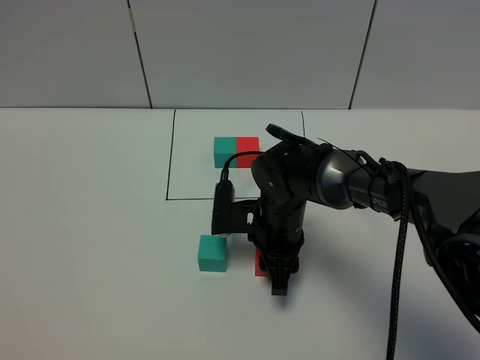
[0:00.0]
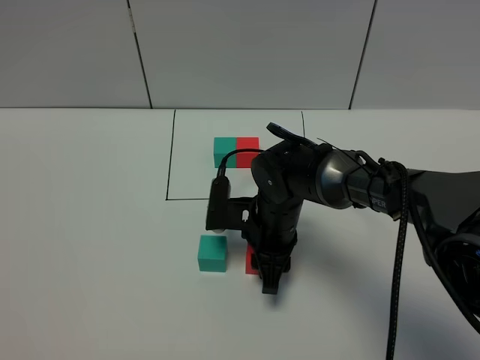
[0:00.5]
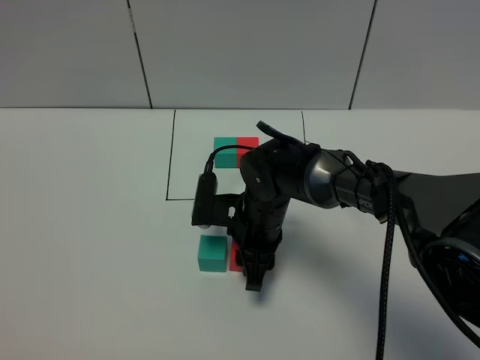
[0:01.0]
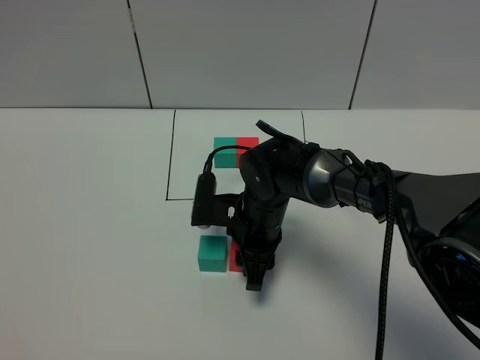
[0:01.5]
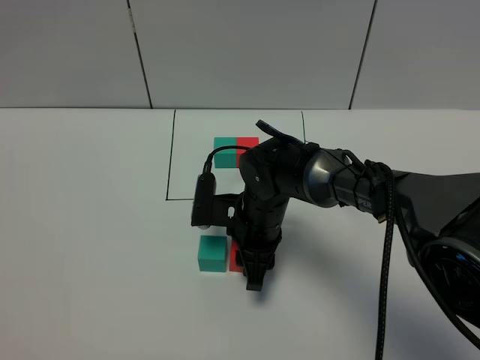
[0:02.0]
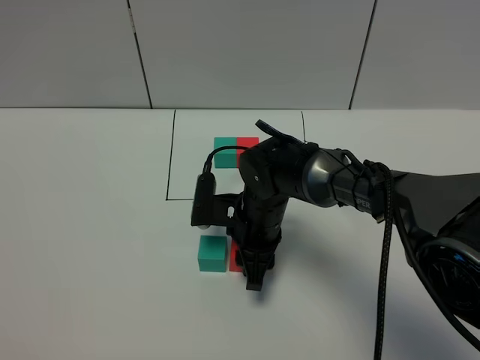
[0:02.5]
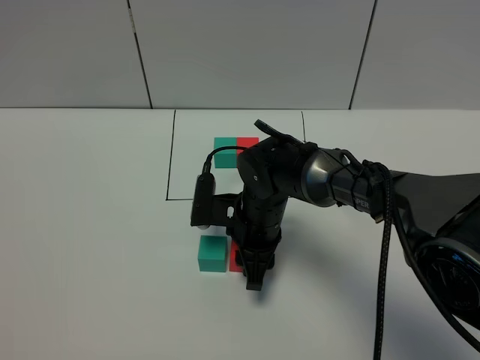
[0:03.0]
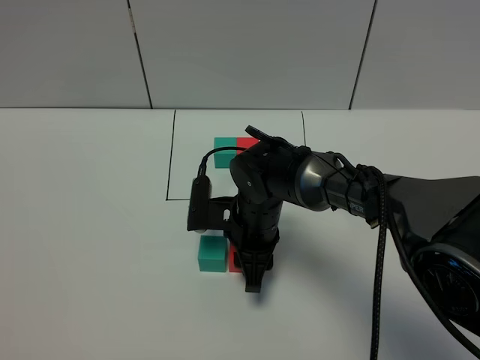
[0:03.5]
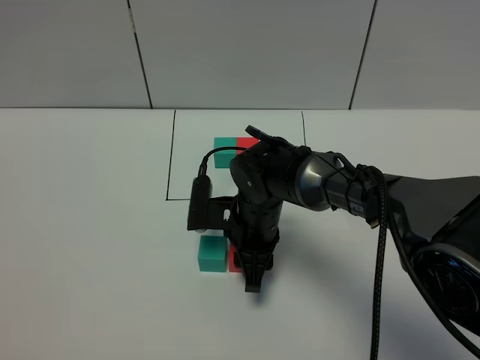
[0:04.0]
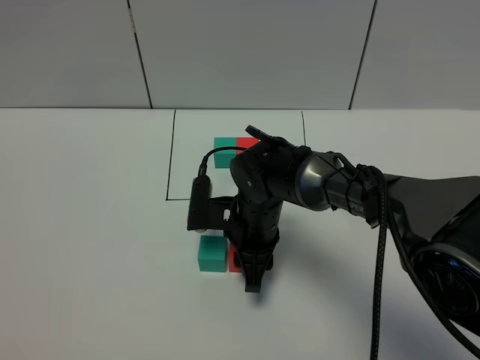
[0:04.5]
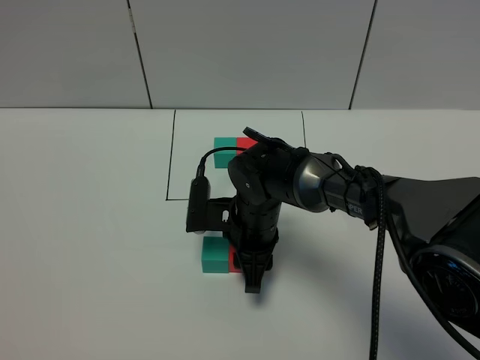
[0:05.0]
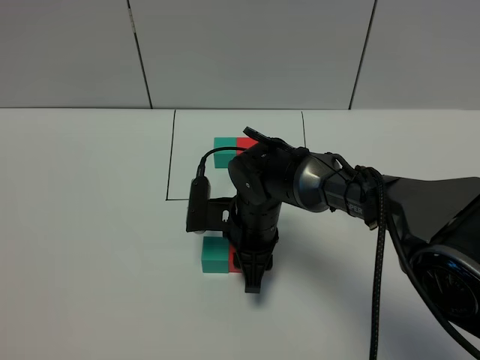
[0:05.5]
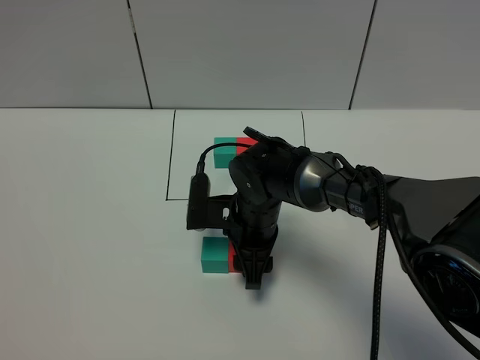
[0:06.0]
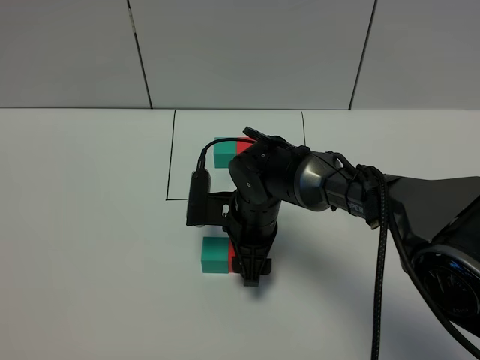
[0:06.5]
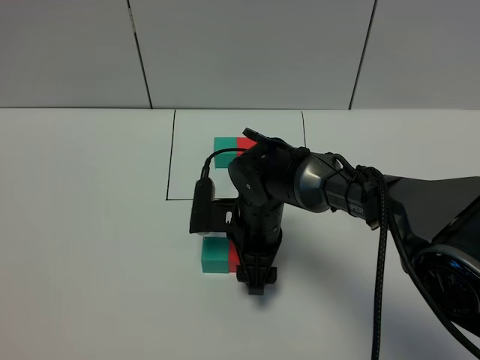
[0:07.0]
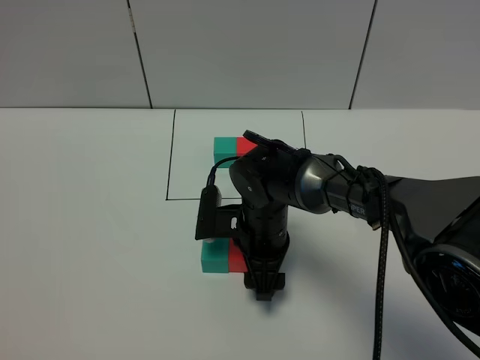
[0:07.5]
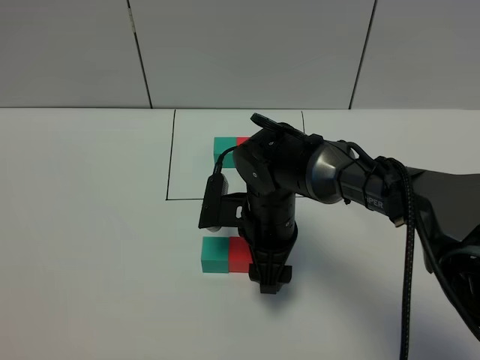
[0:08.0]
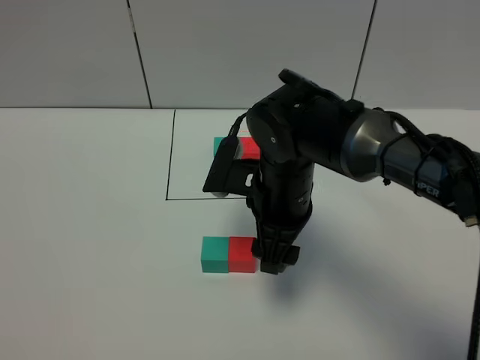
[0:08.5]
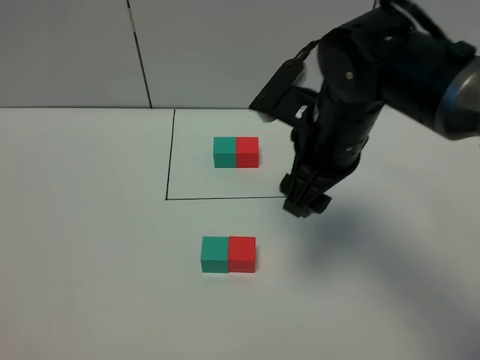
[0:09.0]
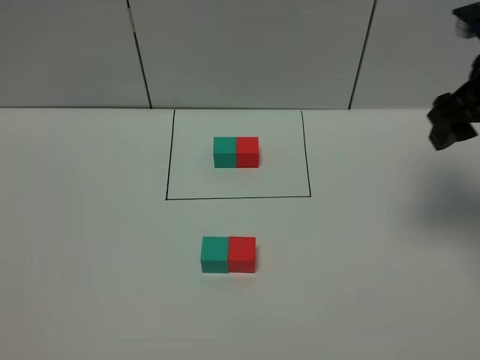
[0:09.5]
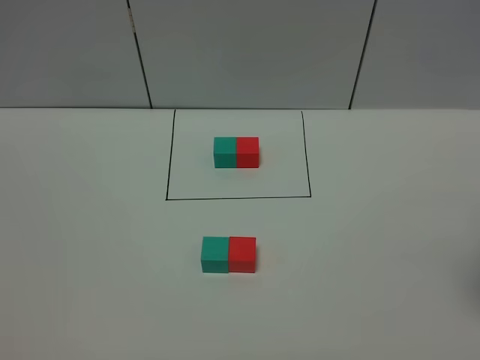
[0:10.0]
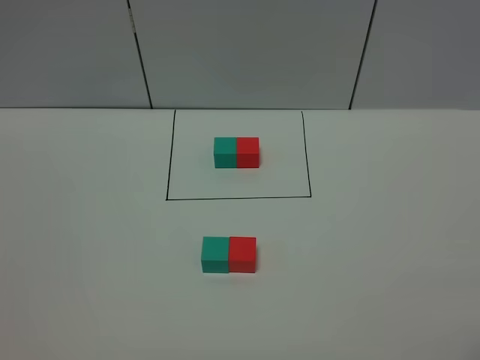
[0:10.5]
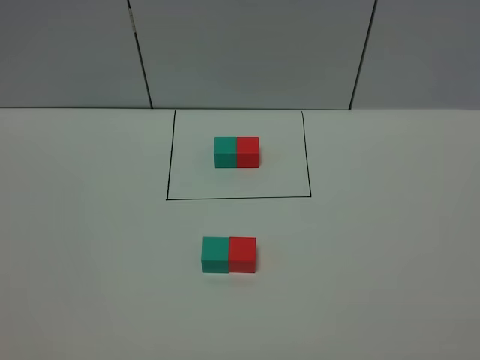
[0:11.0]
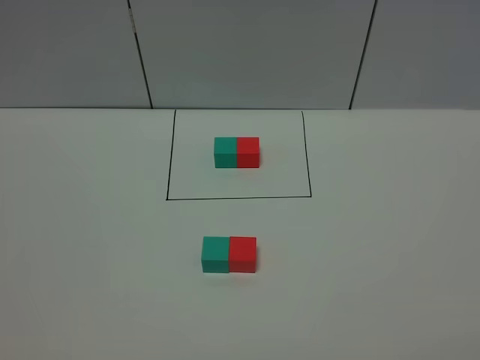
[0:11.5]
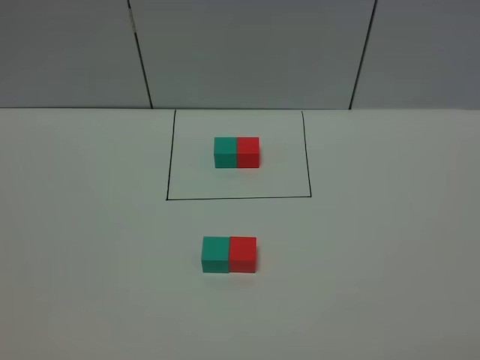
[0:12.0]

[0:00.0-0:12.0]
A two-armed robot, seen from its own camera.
Task of the whole recording: According to the building block template in front, assemble the scattered blocks together.
Step, 0:00.0 to 0:08.0: Put the red cube on the right of the green cube.
0:00.0 to 0:02.0: There are only small adjustments of the grippers.
0:02.0 to 0:06.0: The two grippers keep their place.
0:06.0 to 0:08.0: There are only small adjustments of the grippers.
0:08.0 to 0:10.0: The right gripper goes roughly 35 cm to the right and upward.

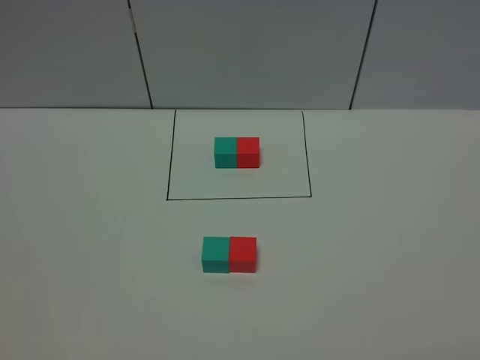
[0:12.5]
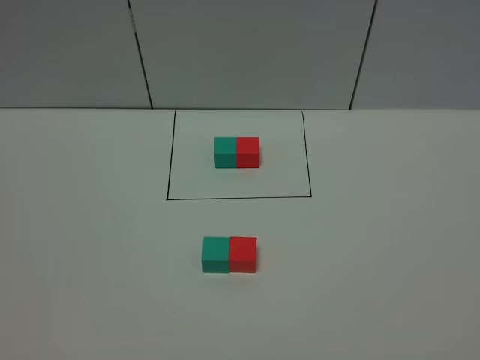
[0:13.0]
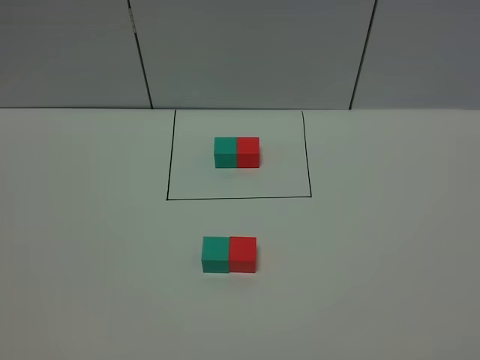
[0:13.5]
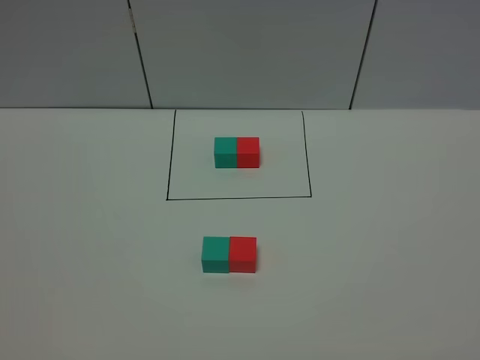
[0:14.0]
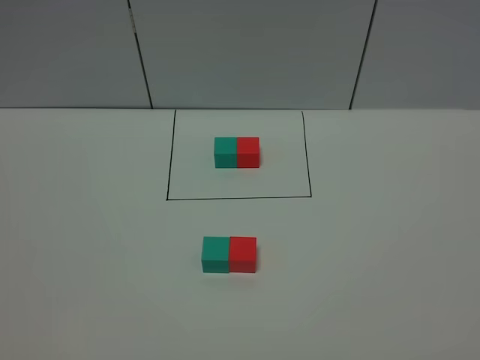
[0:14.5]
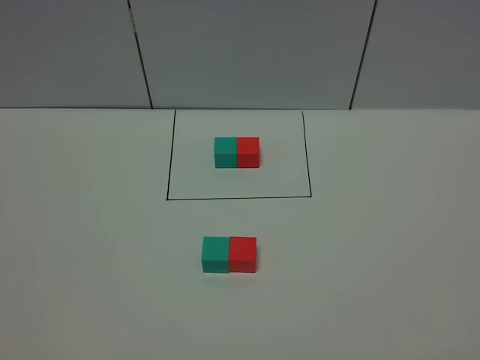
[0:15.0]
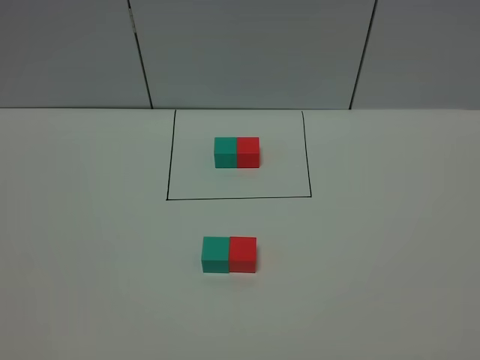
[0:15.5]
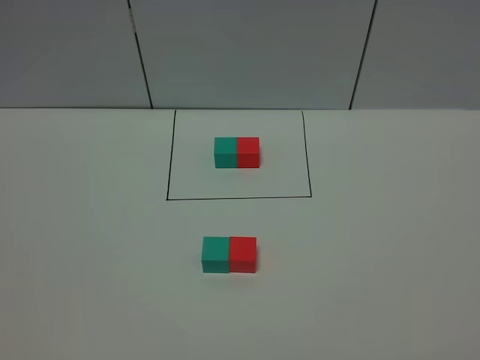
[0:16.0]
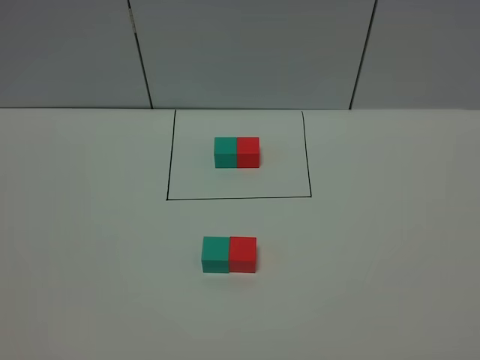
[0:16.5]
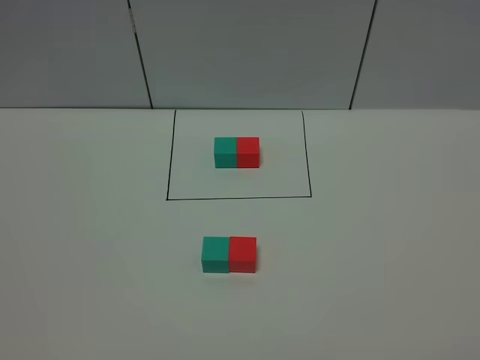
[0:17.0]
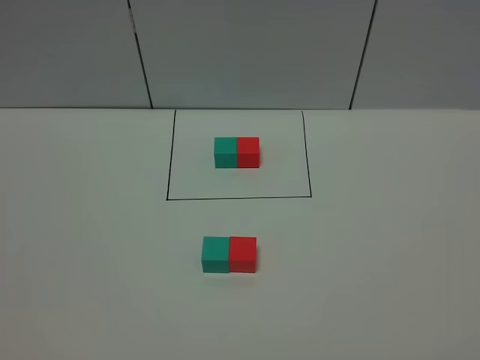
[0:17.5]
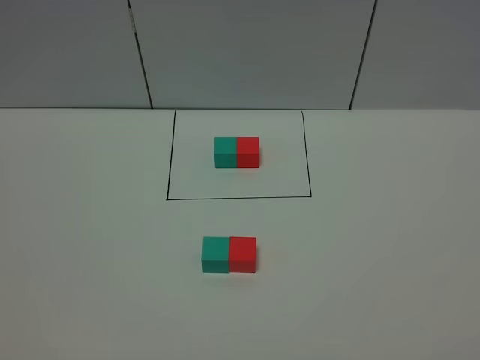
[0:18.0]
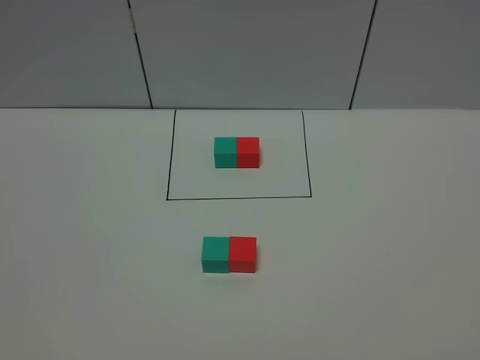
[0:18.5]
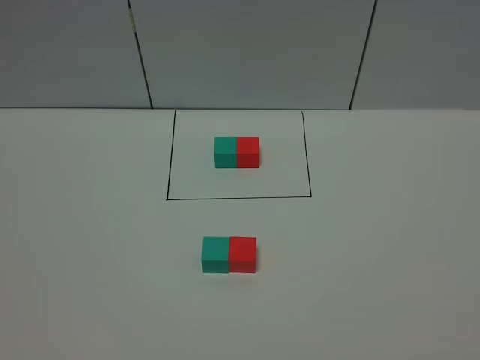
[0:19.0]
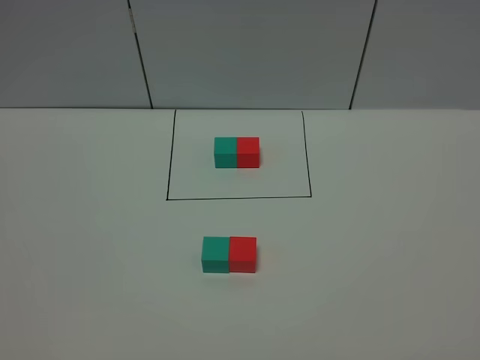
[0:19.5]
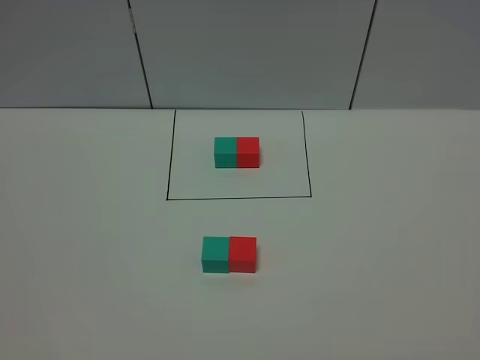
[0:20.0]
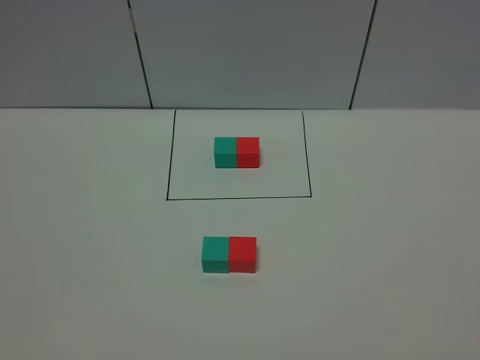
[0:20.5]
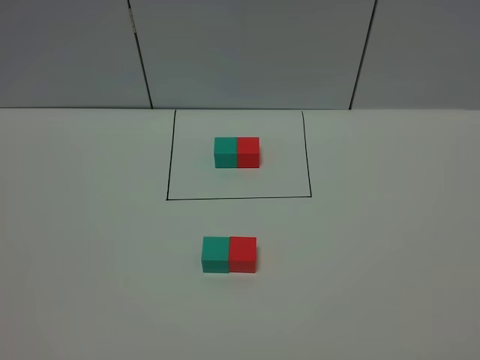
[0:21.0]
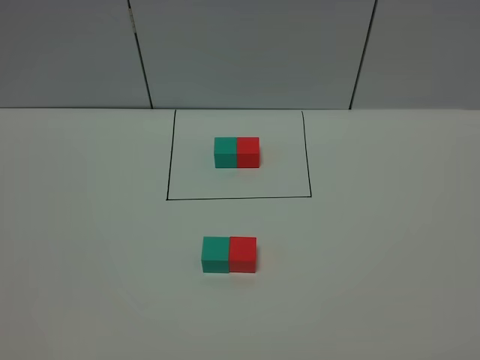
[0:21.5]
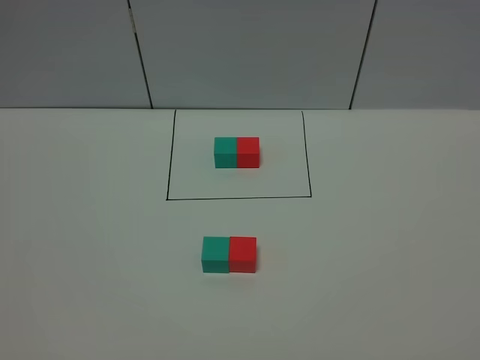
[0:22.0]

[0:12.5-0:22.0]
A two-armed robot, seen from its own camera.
Task of the whole recording: According to the building block template in front, assemble the scattered blocks together.
0:14.5 to 0:22.0: The two grippers keep their place.

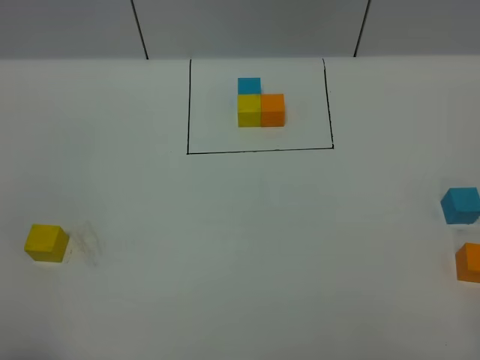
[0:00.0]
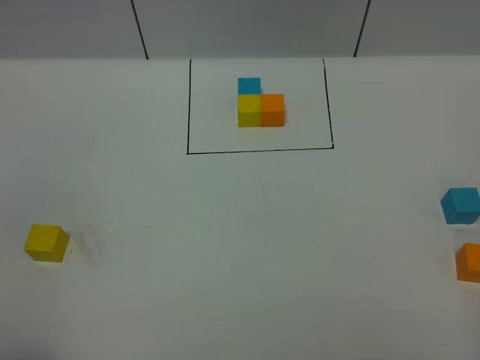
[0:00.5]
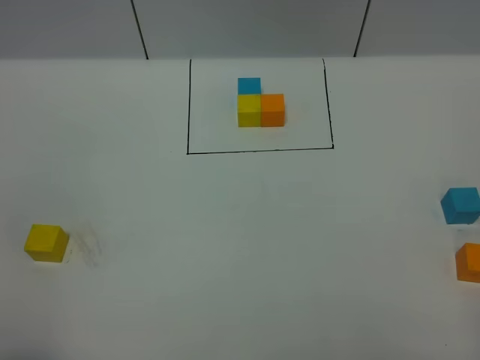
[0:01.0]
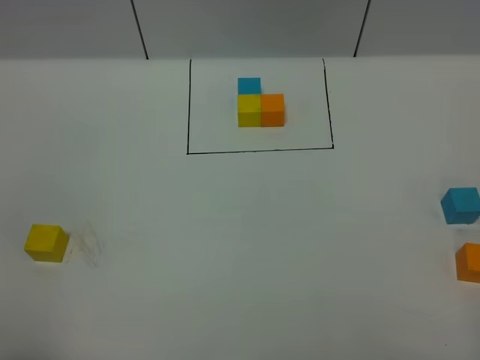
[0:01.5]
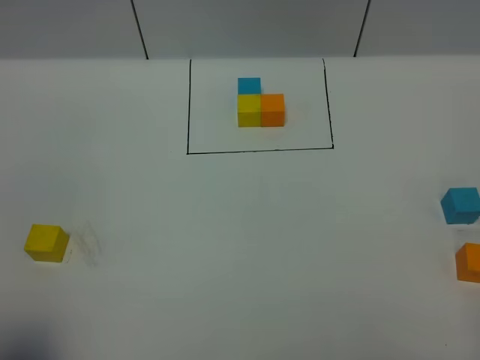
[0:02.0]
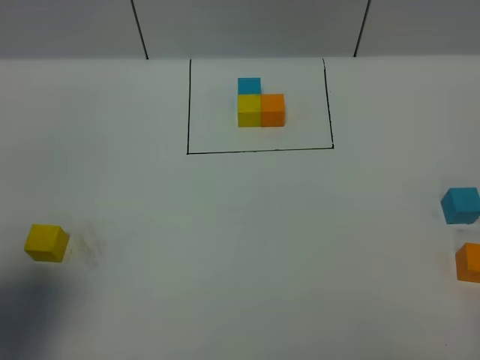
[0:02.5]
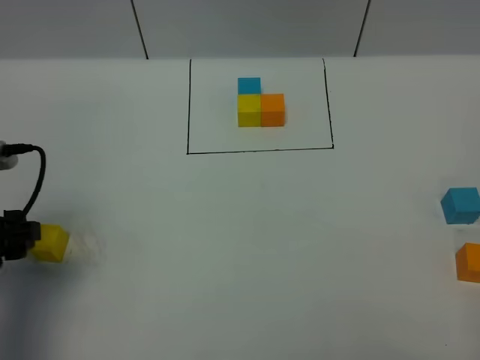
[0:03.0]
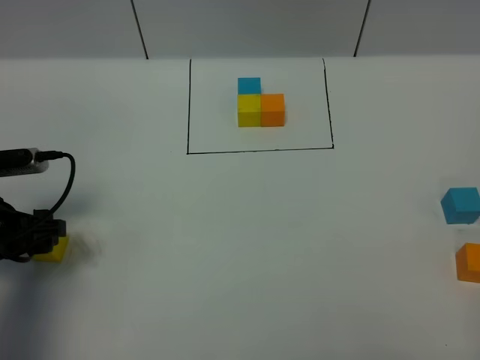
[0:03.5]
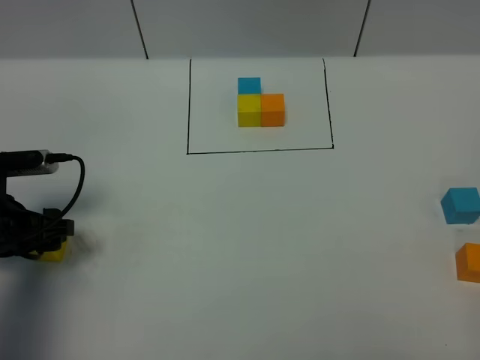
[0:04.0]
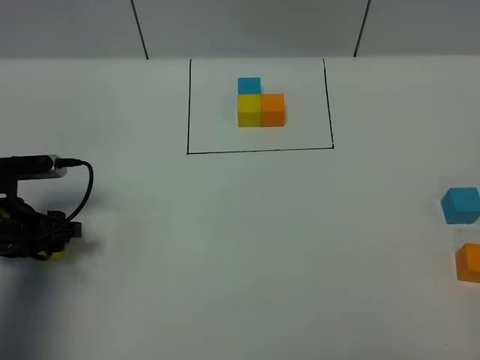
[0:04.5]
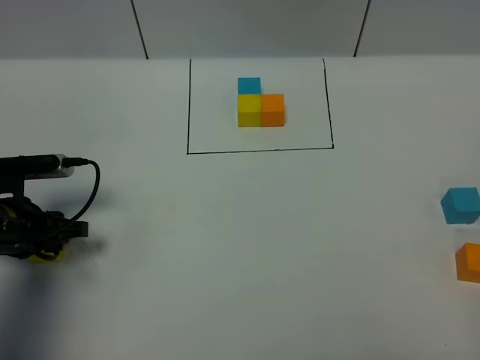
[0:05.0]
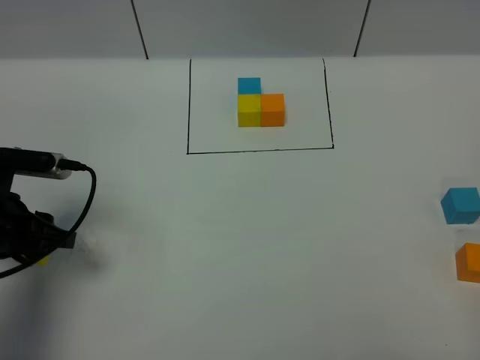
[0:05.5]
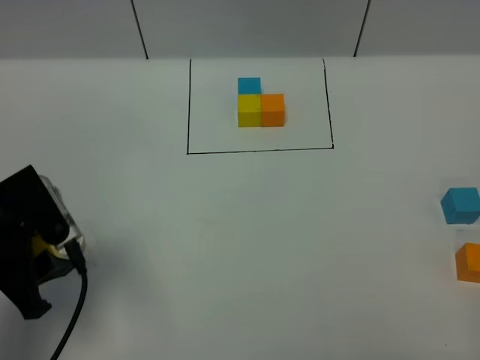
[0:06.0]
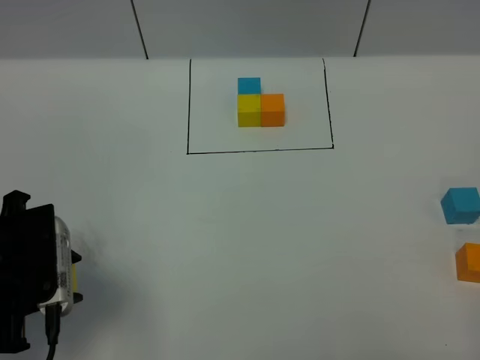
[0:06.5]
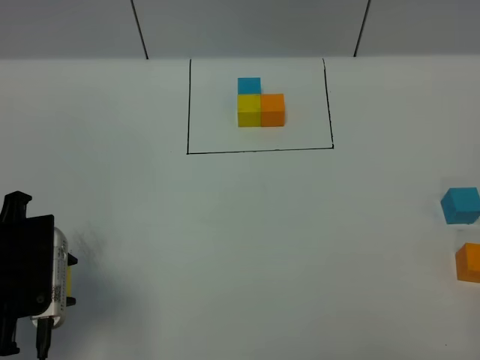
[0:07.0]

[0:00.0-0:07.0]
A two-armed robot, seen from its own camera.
Task of the whole recording: According to the building block template in front, assemble the scattered blocks together.
0:02.0 to 0:03.5: The left gripper travels forward and downward by roughly 25 cm.
0:03.5 to 0:05.0: The left gripper closes.
0:05.0 to 0:07.0: The left gripper travels upward and backward by roughly 10 cm.
